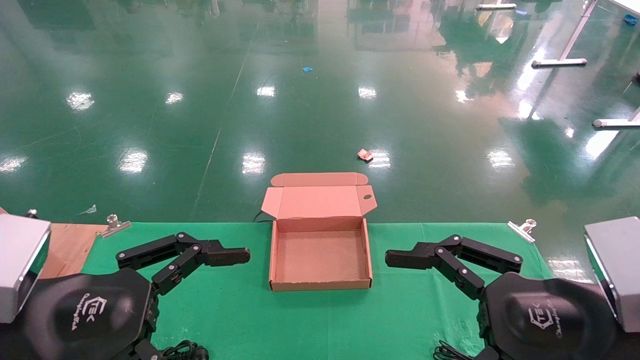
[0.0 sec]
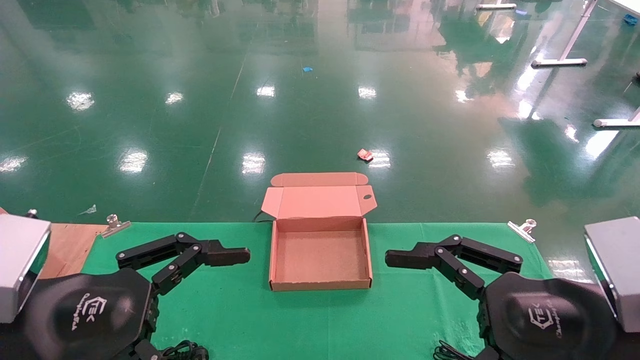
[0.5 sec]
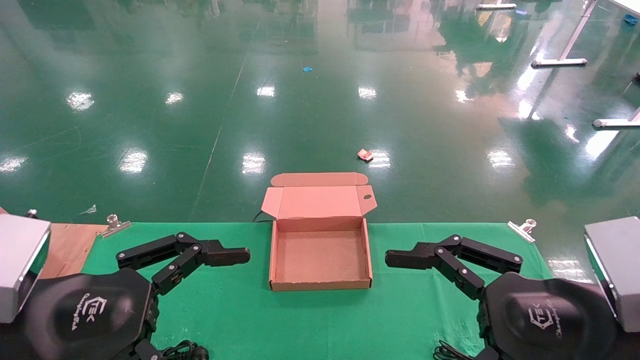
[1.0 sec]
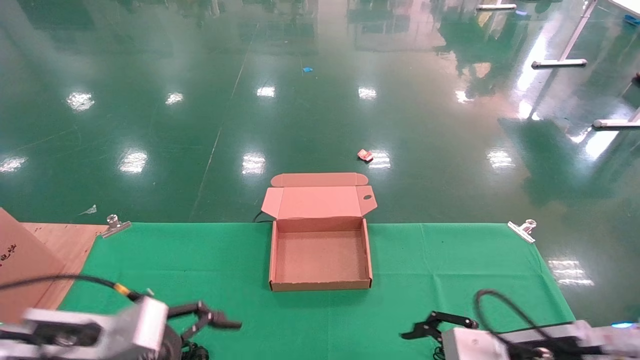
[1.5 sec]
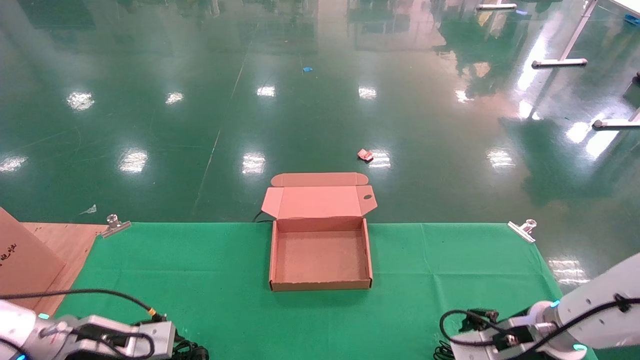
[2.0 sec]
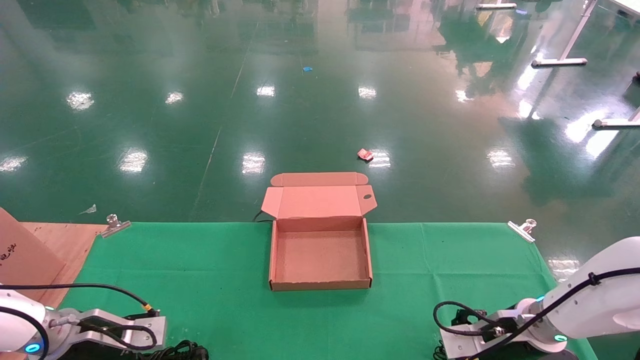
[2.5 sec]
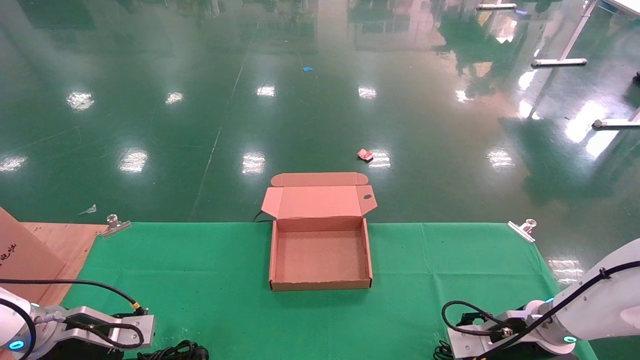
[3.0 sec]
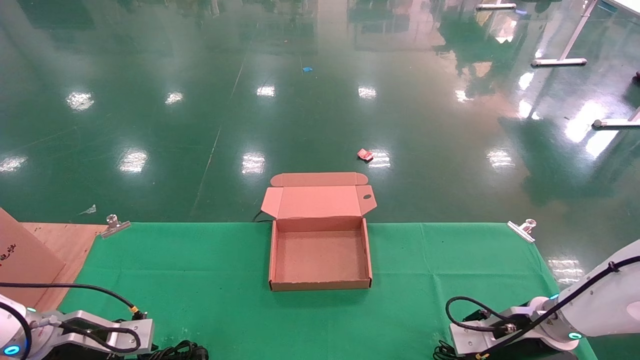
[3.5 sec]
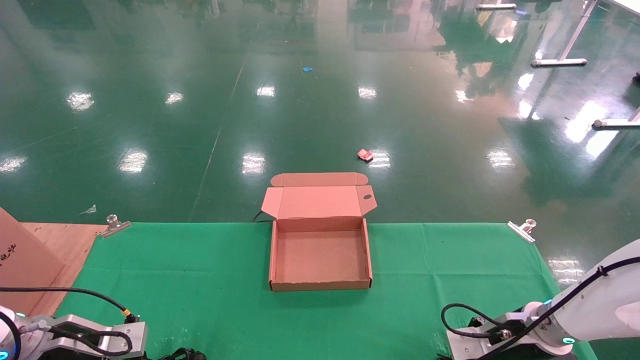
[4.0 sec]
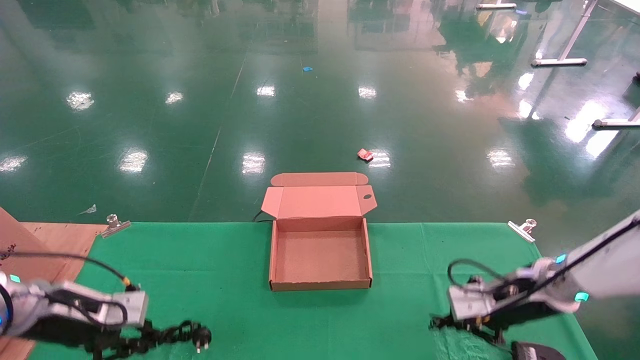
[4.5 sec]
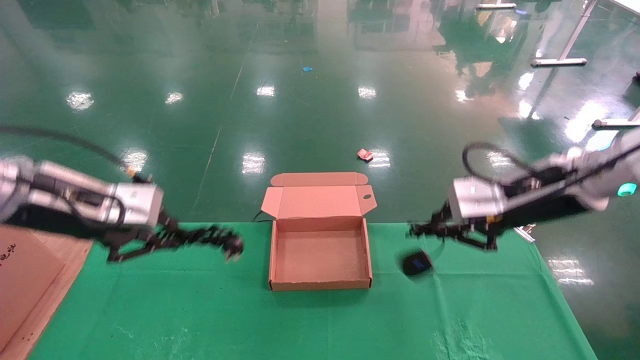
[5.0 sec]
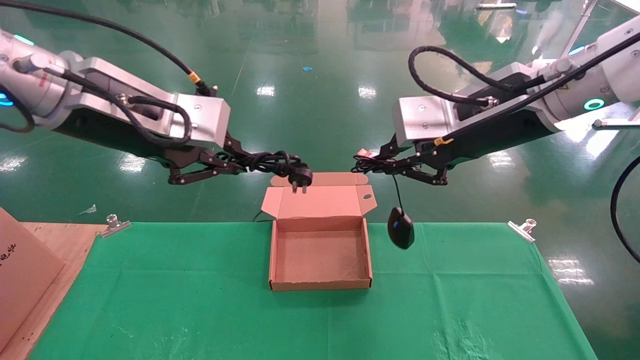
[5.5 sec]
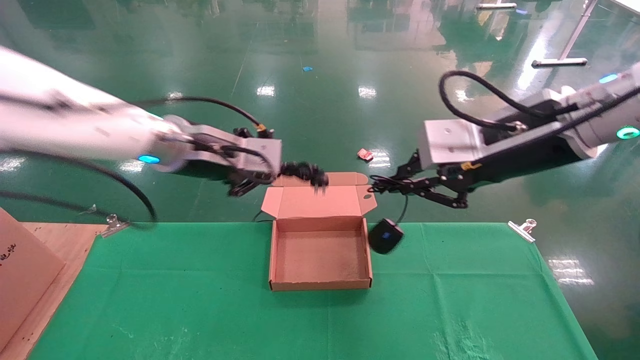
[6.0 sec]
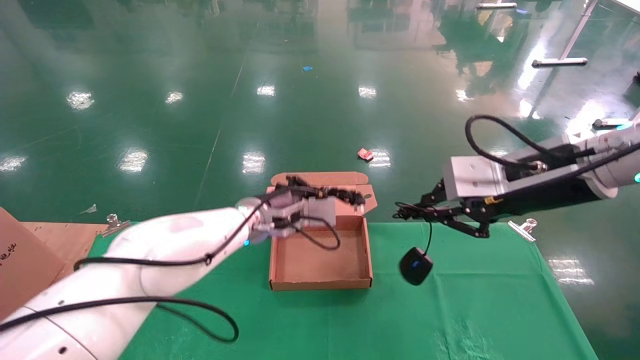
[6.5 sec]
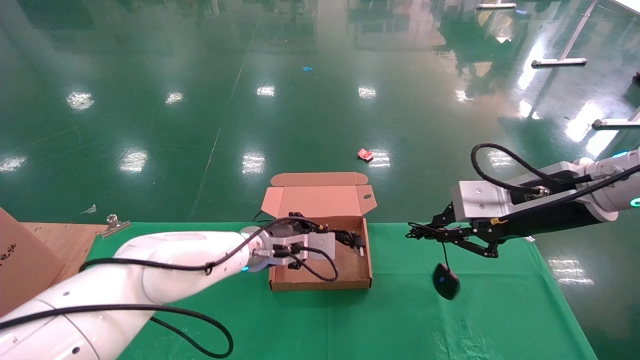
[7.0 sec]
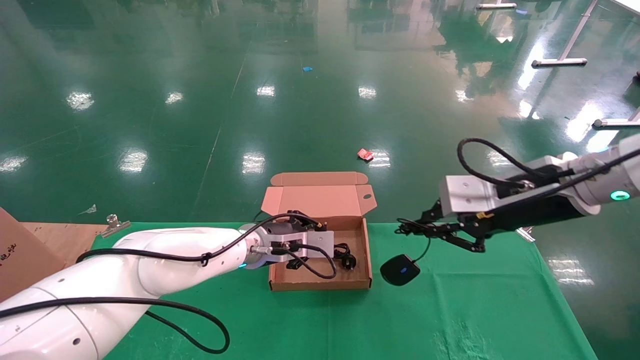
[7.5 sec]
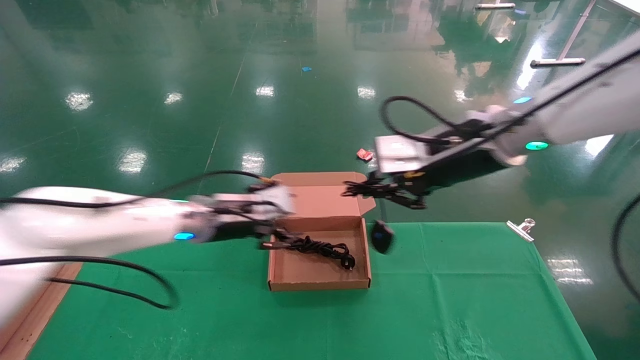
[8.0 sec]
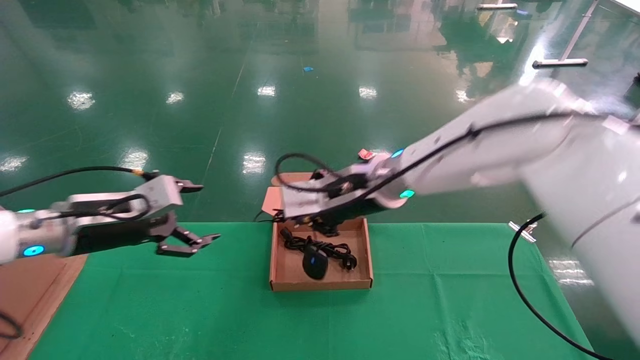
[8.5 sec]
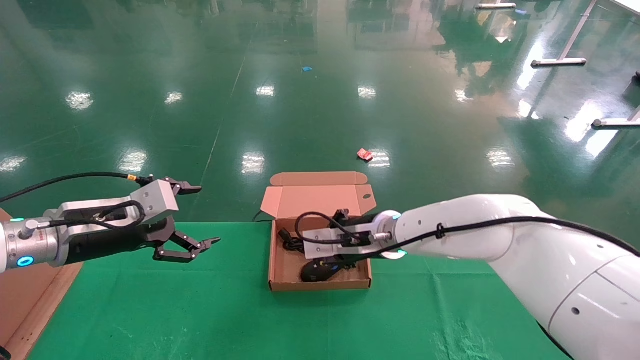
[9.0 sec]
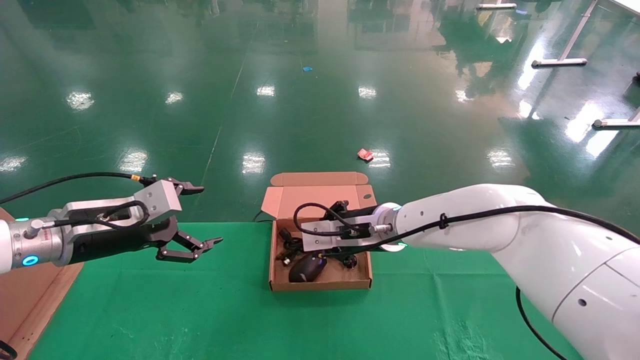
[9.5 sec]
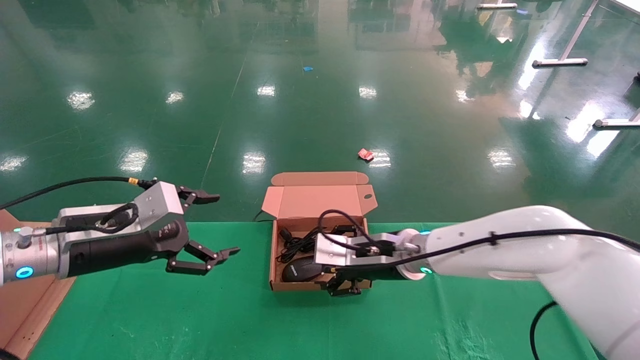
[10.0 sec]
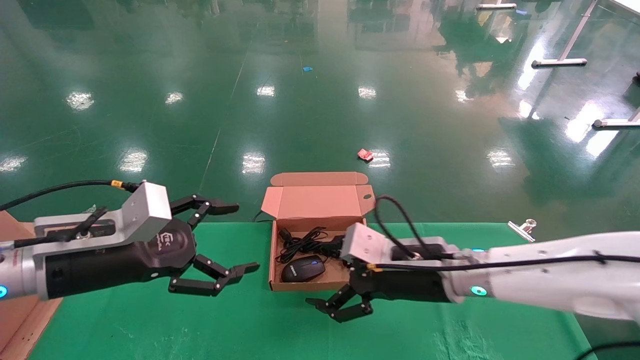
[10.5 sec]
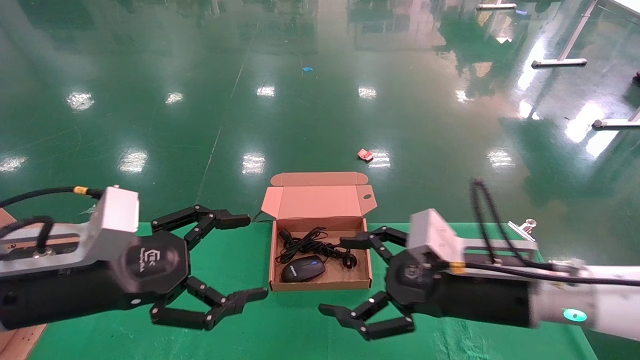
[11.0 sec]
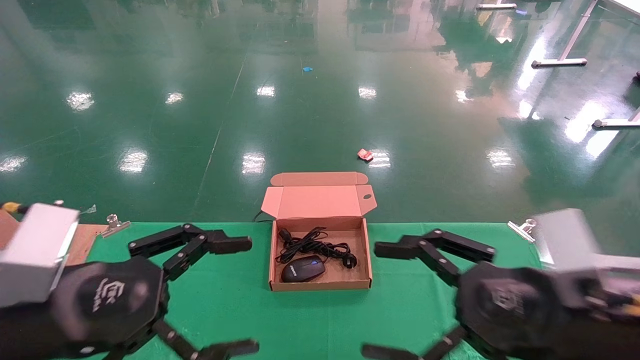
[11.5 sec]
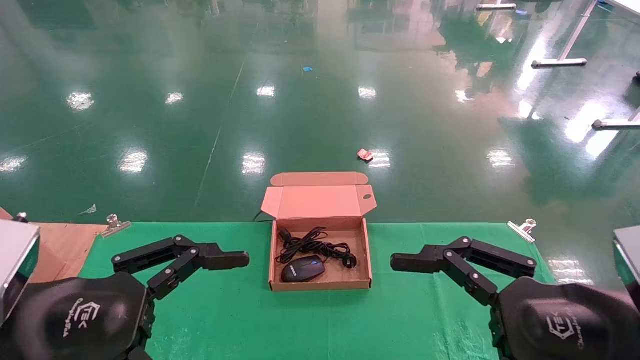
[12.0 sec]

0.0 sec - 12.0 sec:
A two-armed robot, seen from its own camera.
Step, 1.5 sec - 5.0 sec: Grab and lift both the mouse and power cord from the accessory packaging area at the same time.
Step, 5.5 sec - 10.5 sec: Place the mouse and power cord into the box.
0.0 sec - 2.0 sec: The left gripper heads forward, downward and to the left, covering some 25 cm, while the right gripper goes about 25 cm forward and downward.
2.0 sec - 4.0 sec: The right gripper closes up; the left gripper heads to the left, covering some 5 cm, and closes.
4.0 sec - 6.0 sec: The right gripper moves upward, some 30 cm. The left gripper shifts about 35 cm upward and to the right.
6.0 sec - 8.0 sec: The right gripper is displaced forward and to the left by some 10 cm. Meanwhile the left gripper shifts about 10 cm downward, and opens up.
8.0 sec - 10.0 sec: The left gripper shifts approximately 15 cm to the left and backward, and opens. Meanwhile the right gripper goes about 20 cm downward and to the left, and opens up.
10.0 sec - 12.0 sec: The left gripper heads backward, covering about 15 cm, while the right gripper is displaced backward and to the right by approximately 30 cm, and opens its fingers.
